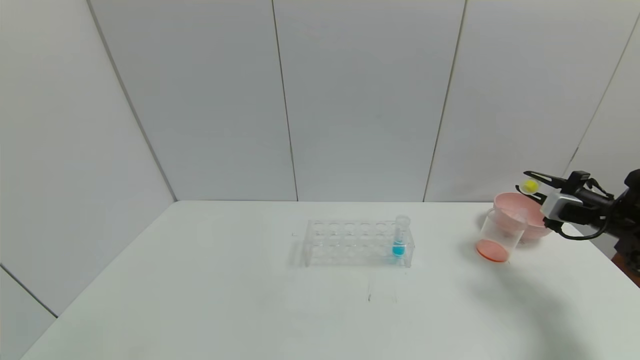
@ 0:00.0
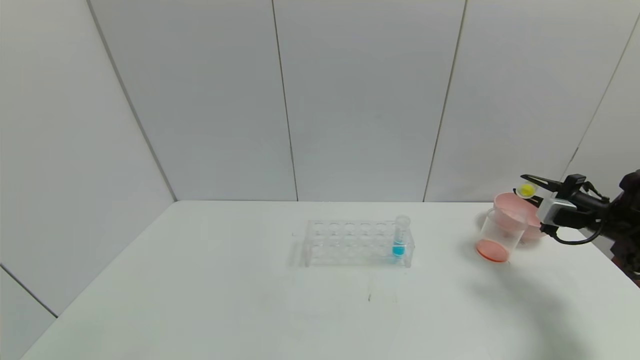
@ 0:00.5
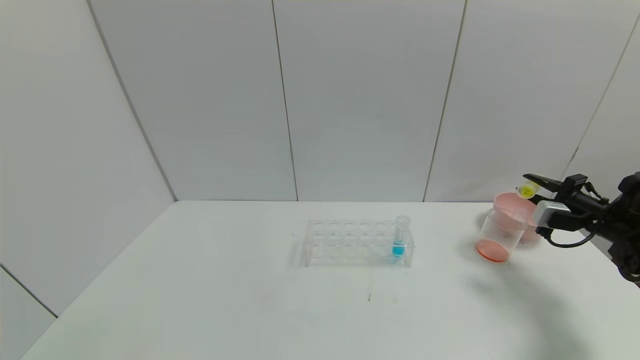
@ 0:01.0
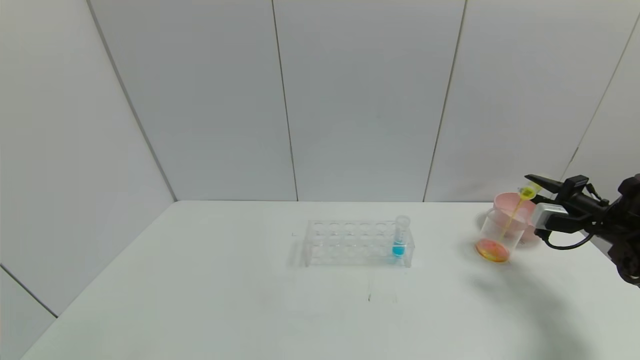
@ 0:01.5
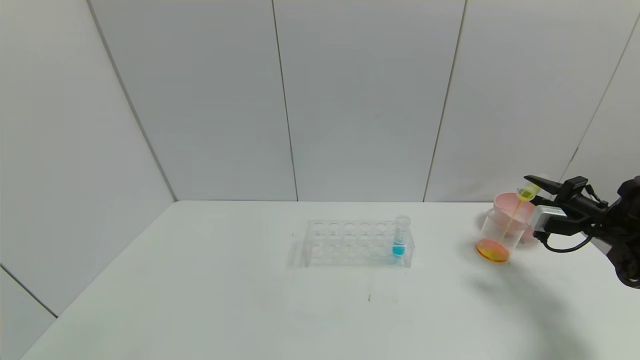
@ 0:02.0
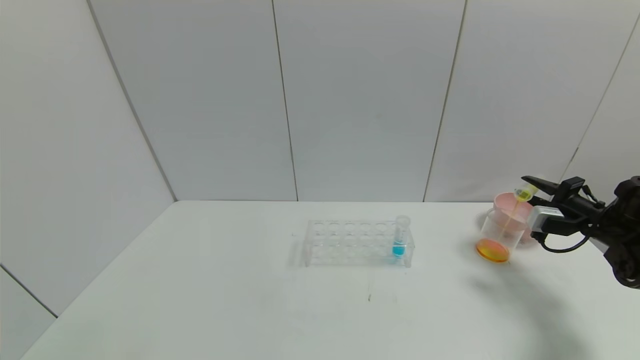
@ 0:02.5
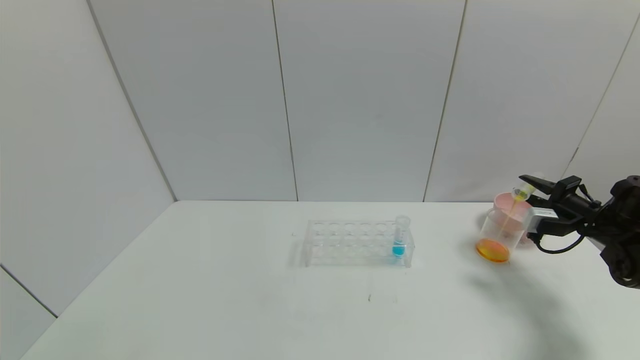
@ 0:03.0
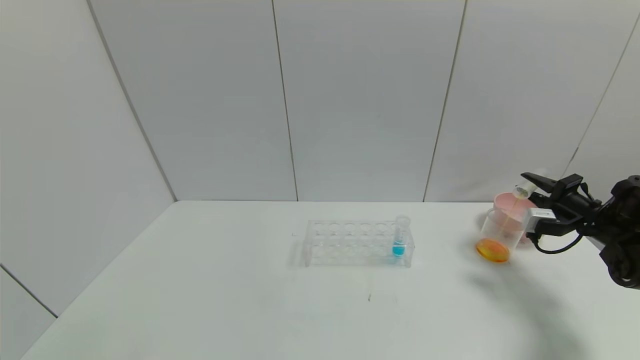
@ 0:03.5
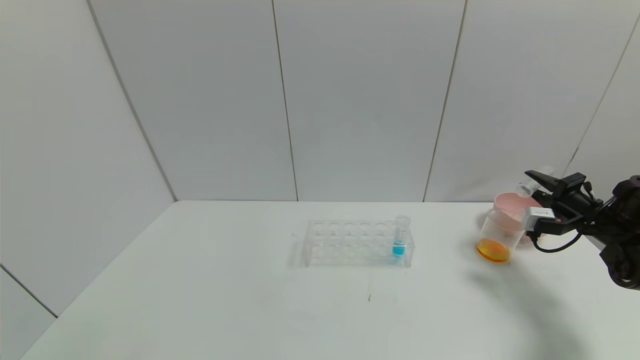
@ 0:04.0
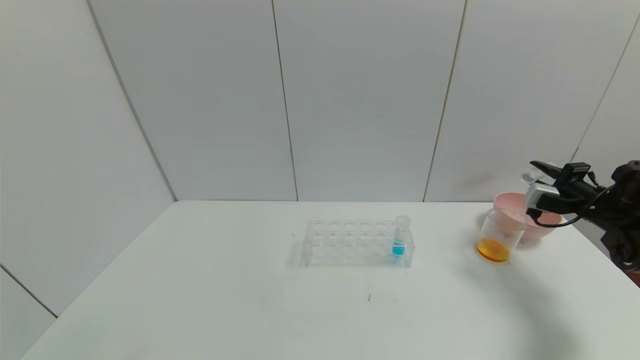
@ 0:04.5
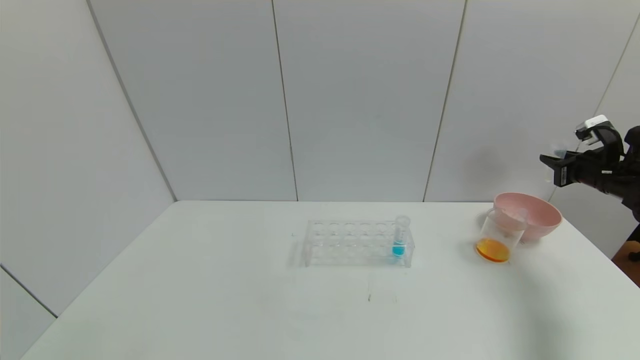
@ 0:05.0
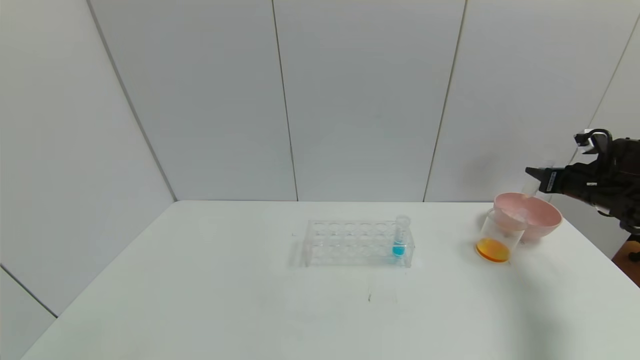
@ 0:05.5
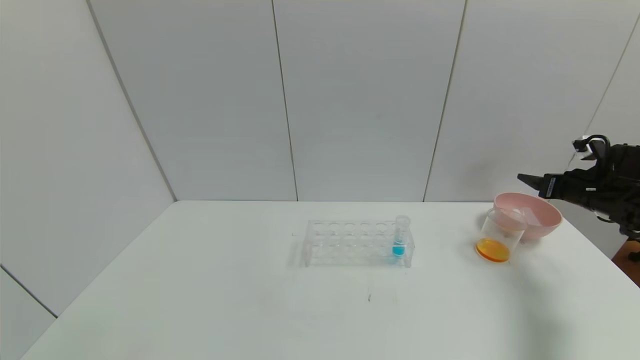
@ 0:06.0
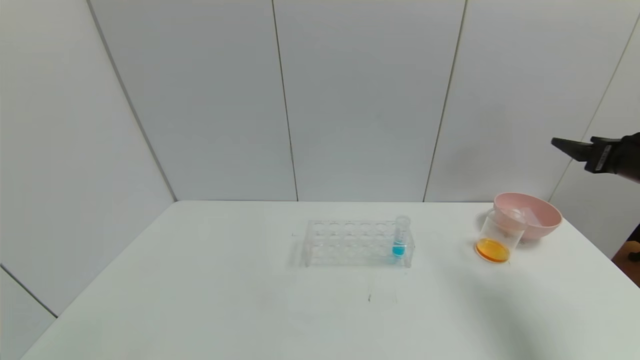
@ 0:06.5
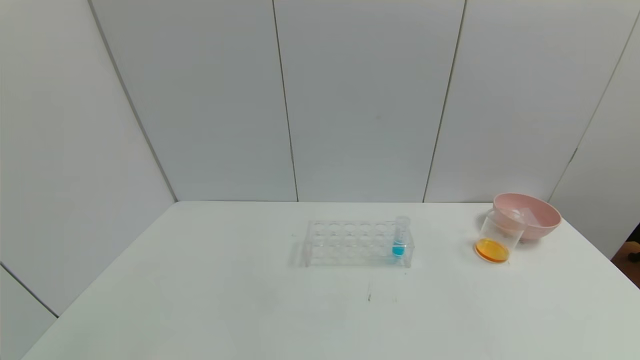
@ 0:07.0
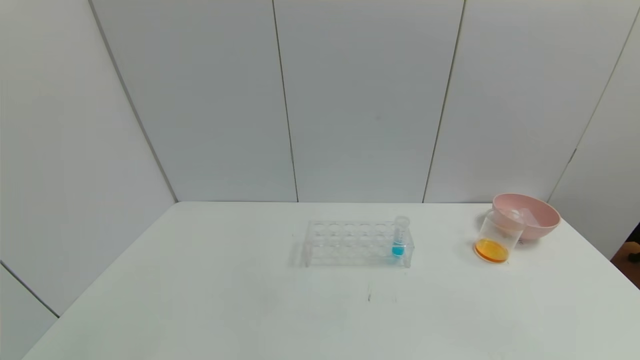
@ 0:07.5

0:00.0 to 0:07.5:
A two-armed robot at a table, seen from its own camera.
Task of the whole recording: pick up the test tube with yellow pigment and the test tube with red pigment by grippers and pour them into the beaker.
Step, 0:00.0 to 0:04.5: Pour the yellow reagent into the graduated cylinder with the right gripper.
Step, 0:05.0 to 0:05.5: Place the test tube into the bowl with the right gripper.
0:00.0 to 0:02.0: The grippers make only small movements.
0:02.0 to 0:04.0: The grippers move only a little.
0:04.0 to 0:05.5: The right gripper changes place by about 5 cm.
0:05.5 to 0:07.5: The right gripper heads backward, covering some 40 cm, and opens its fingers.
